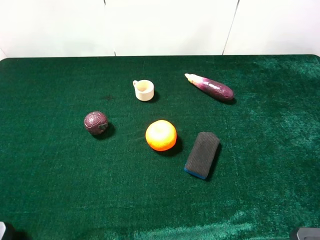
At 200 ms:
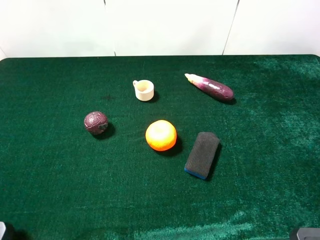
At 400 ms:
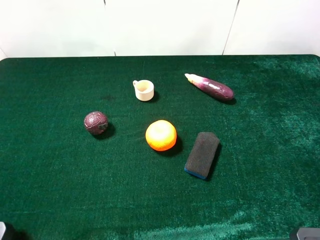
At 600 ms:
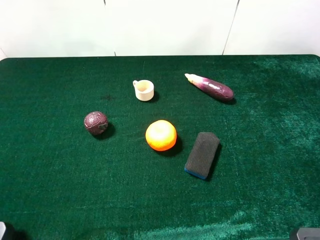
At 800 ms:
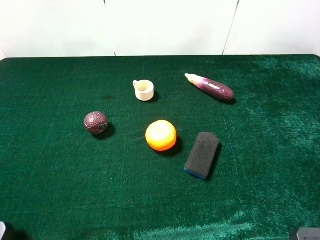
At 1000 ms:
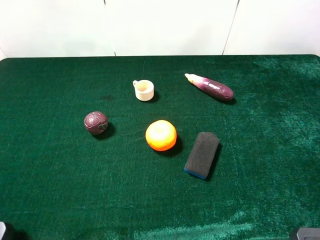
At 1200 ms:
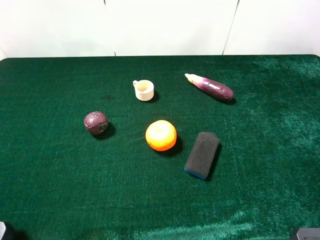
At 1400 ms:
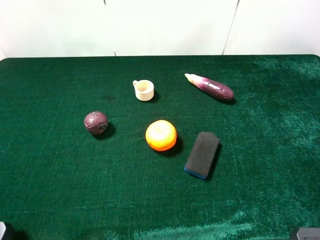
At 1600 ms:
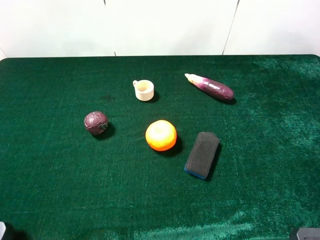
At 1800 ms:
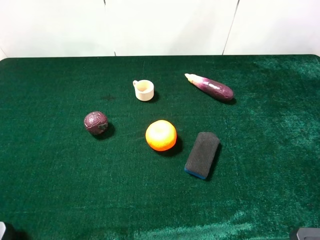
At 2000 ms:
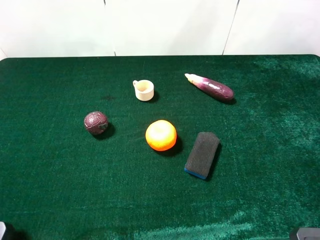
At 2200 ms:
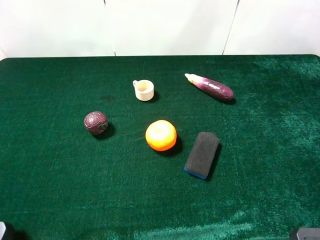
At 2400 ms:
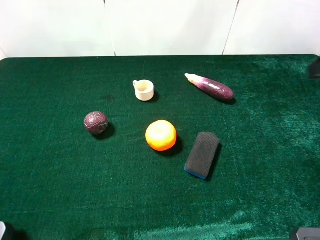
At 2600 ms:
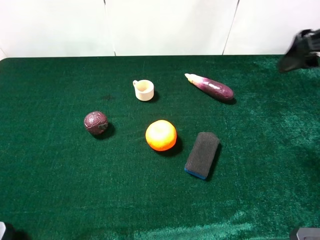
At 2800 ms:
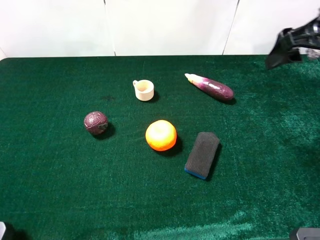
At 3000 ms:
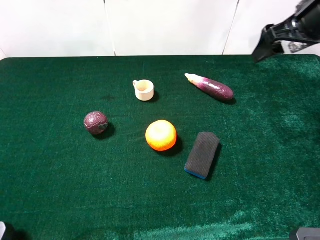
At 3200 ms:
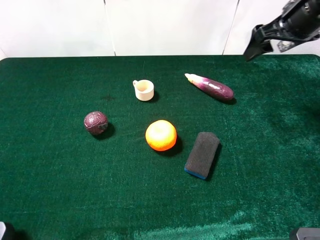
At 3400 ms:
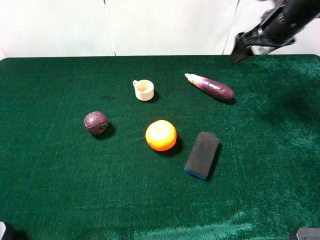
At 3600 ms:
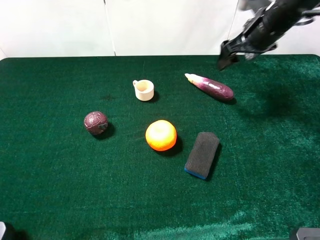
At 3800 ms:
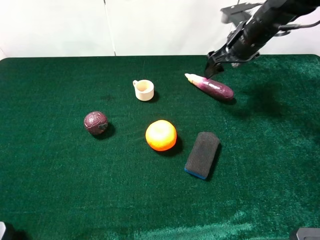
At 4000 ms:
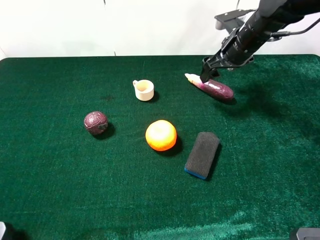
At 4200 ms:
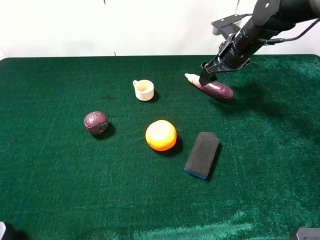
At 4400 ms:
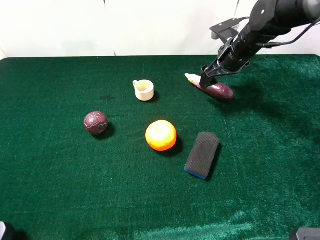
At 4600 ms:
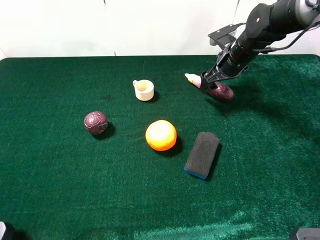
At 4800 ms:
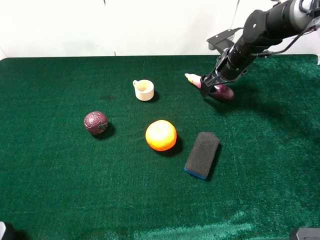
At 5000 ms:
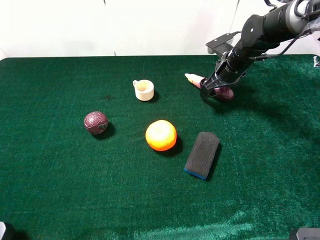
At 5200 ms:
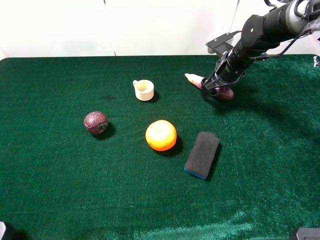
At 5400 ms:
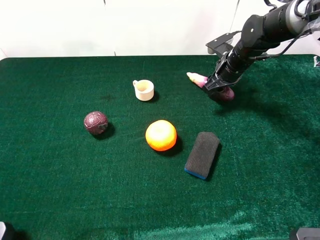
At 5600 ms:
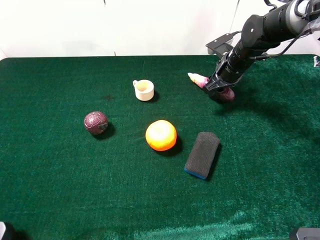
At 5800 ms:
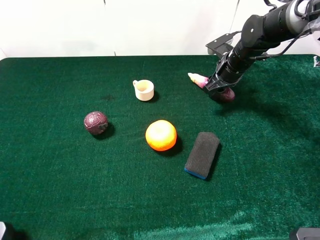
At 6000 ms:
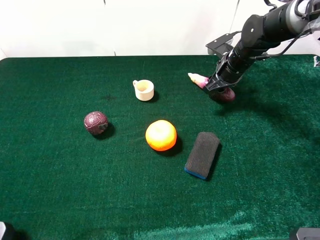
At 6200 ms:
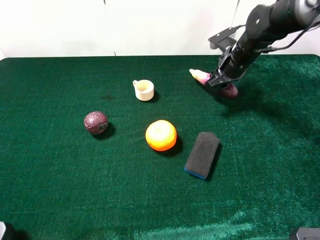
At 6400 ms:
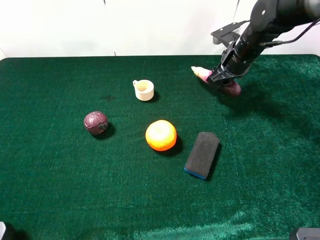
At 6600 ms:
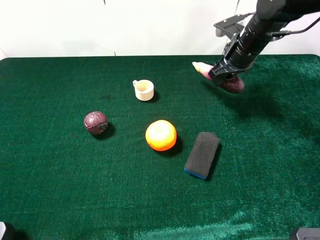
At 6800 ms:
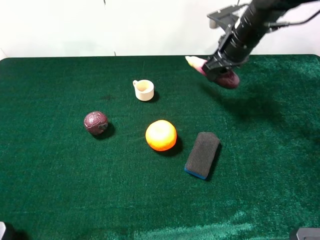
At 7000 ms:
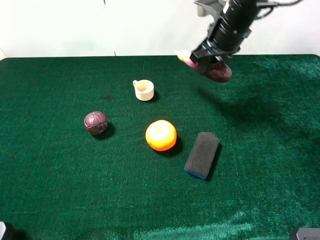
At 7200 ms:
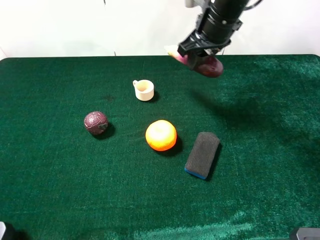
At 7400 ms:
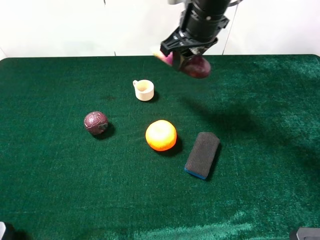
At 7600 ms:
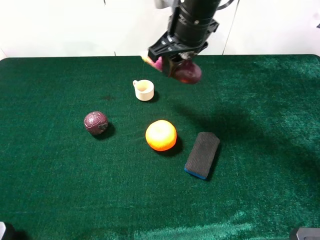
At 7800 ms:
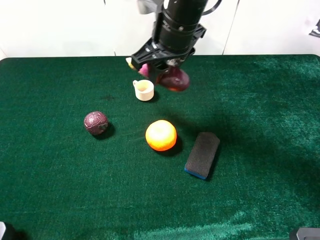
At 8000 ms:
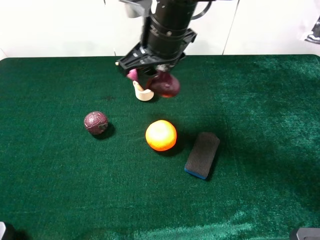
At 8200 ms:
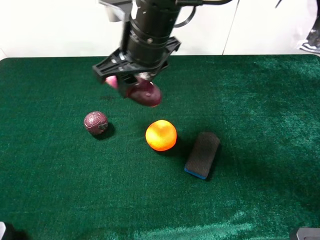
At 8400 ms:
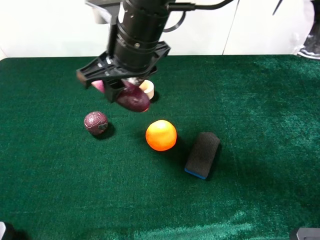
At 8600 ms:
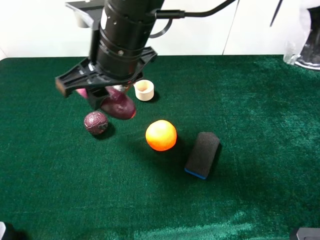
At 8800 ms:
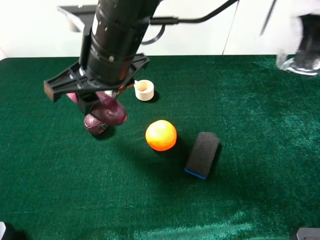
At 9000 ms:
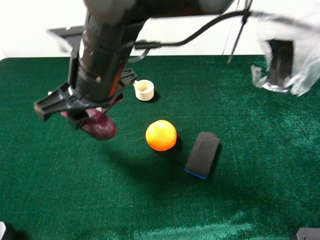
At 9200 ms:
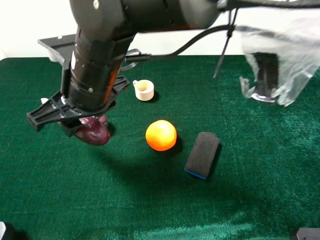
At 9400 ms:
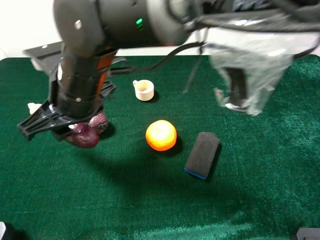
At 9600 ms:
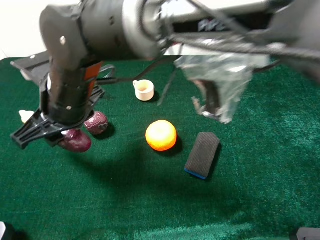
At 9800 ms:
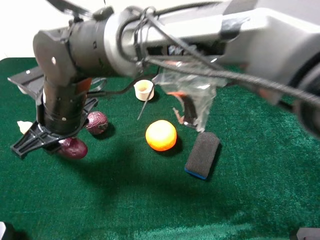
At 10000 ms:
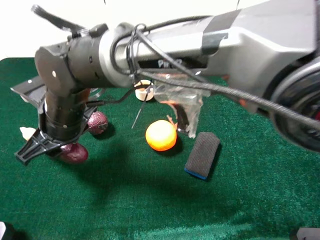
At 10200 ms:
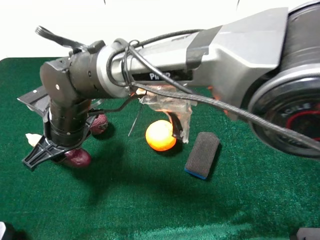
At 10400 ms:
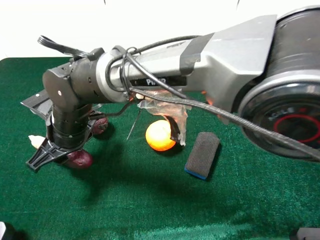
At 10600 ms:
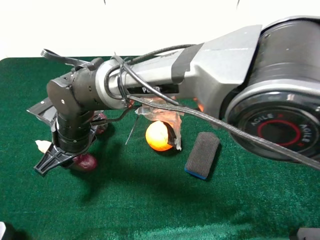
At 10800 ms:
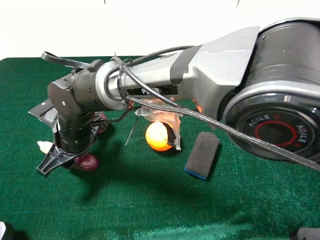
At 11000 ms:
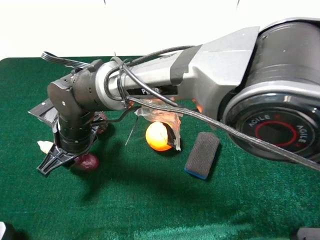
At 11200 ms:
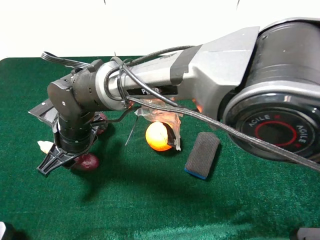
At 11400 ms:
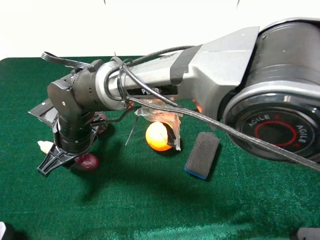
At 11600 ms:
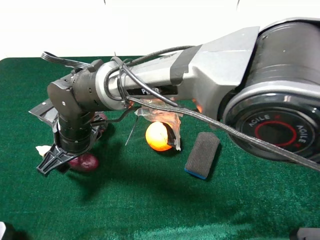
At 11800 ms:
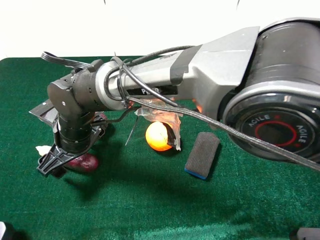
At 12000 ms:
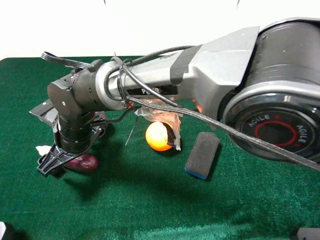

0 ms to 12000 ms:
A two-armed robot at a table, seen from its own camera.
Task of the whole recording: the gripper move the object.
1600 ms to 3000 ms: The right gripper travels forward by some 25 cm.
3000 ms to 4400 ms: The right gripper shifts about 15 cm downward, forward and to the left.
4400 ms to 6000 ms: The right gripper closes.
6000 ms to 7600 ms: The right gripper is displaced upward, to the left and backward by about 20 cm.
7600 ms to 9000 ms: The right gripper moves to the left and backward, about 15 cm.
9000 ms to 10400 ms: The right gripper moves downward and to the left, about 15 cm.
10400 ms to 12000 ms: The right gripper opens up.

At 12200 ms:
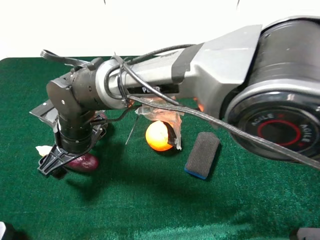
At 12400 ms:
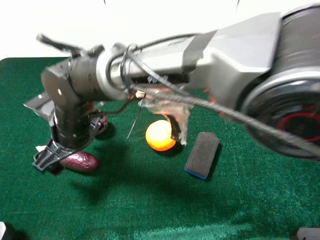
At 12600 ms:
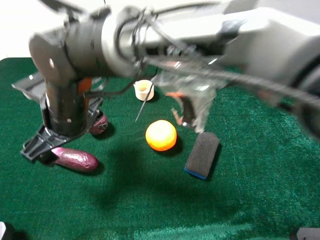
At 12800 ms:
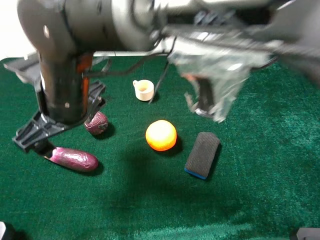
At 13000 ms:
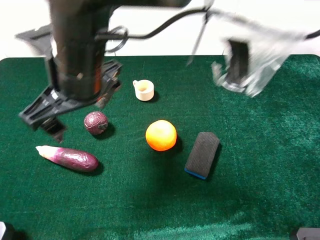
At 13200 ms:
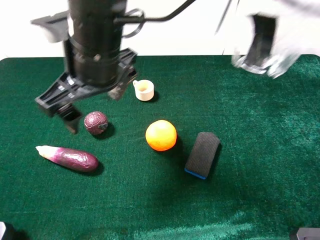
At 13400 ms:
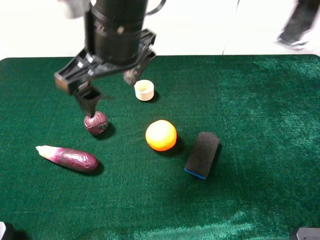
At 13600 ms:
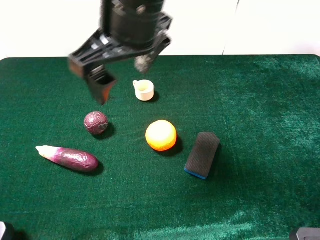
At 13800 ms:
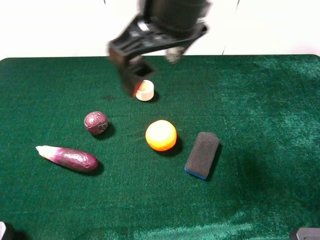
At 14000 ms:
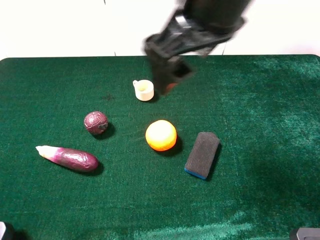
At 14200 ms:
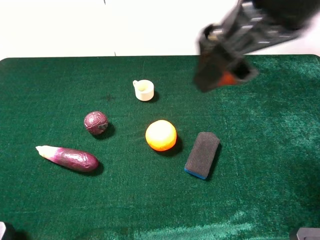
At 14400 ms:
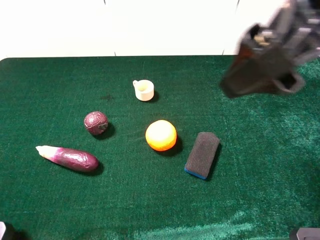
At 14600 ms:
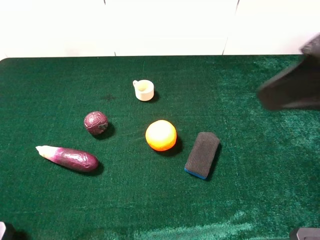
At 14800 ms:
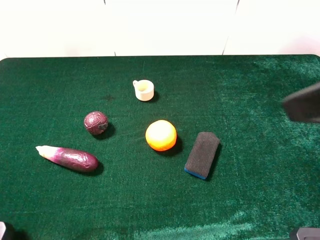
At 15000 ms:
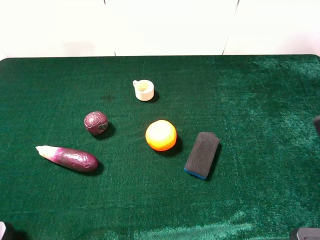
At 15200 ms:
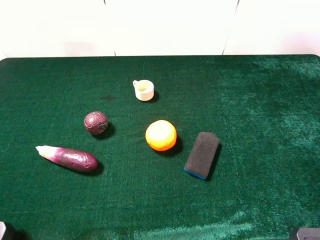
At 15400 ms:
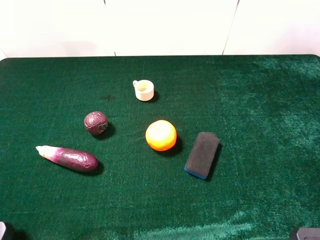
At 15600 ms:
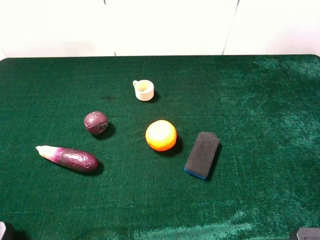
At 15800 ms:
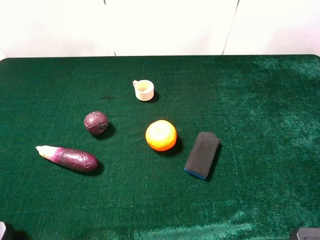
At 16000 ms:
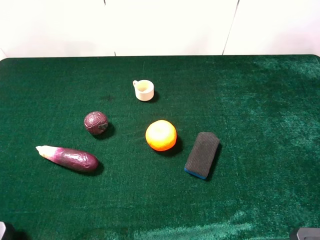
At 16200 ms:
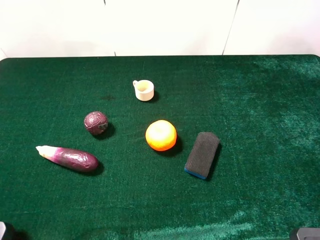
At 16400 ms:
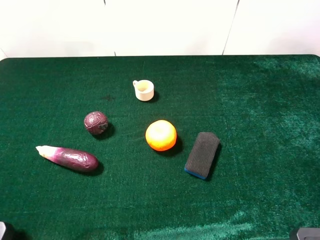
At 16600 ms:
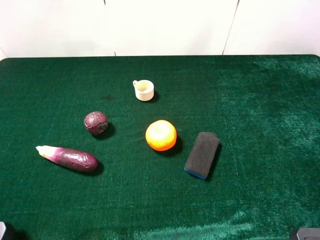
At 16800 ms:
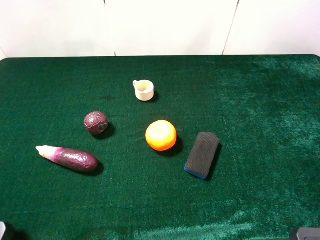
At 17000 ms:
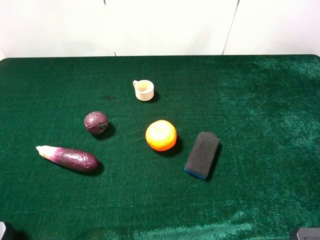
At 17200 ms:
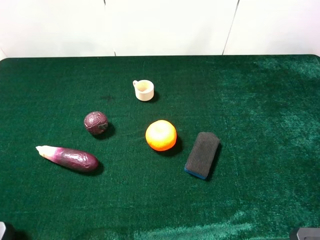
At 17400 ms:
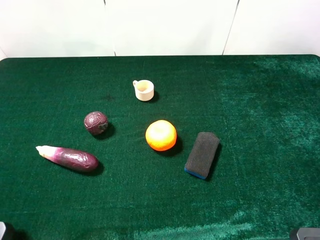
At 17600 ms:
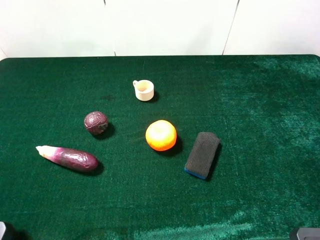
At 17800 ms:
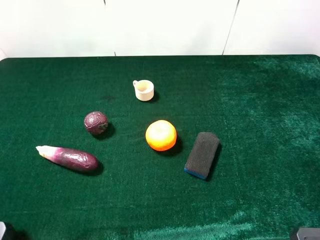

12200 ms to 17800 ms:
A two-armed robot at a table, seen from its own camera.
Task of the whole recording: the gripper move the object.
12200 ms to 13600 ms: The right gripper shifts some 25 cm upward and to the right.
13600 ms to 15000 ms: The right gripper heads to the right and backward, covering about 30 cm.
16400 ms to 17800 ms: Both grippers stay about where they are.

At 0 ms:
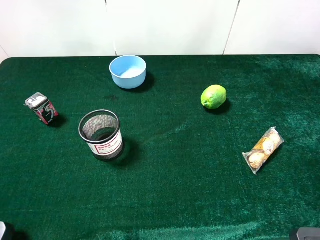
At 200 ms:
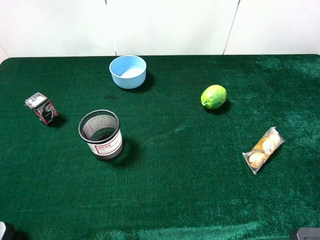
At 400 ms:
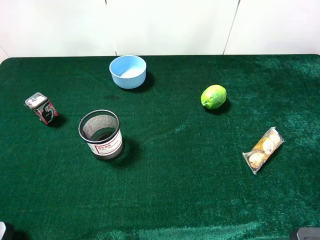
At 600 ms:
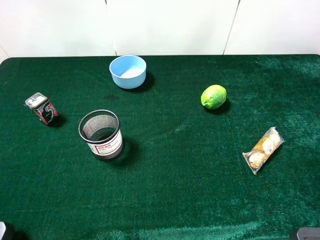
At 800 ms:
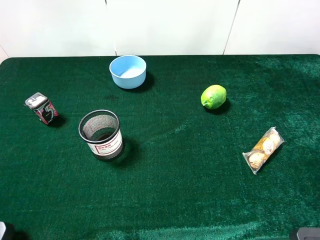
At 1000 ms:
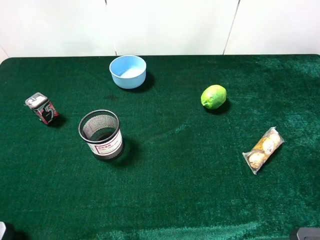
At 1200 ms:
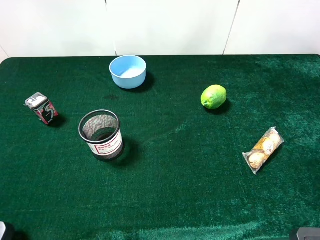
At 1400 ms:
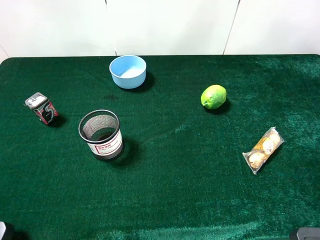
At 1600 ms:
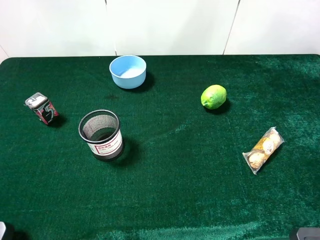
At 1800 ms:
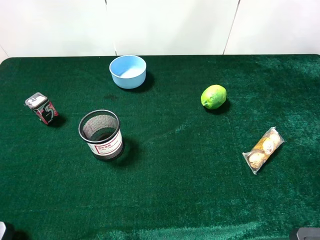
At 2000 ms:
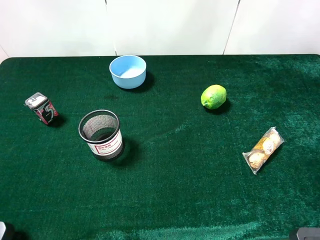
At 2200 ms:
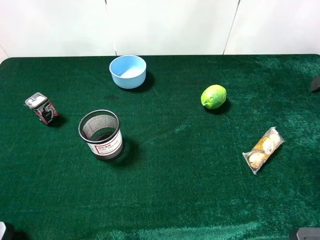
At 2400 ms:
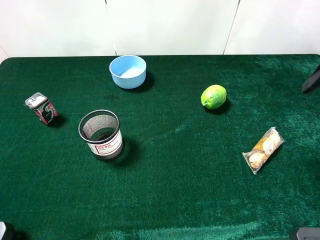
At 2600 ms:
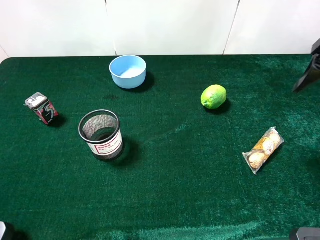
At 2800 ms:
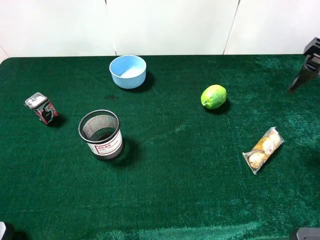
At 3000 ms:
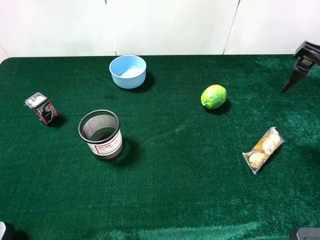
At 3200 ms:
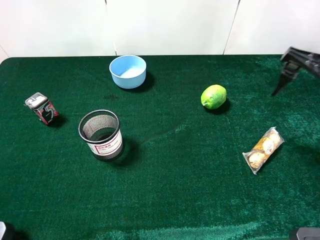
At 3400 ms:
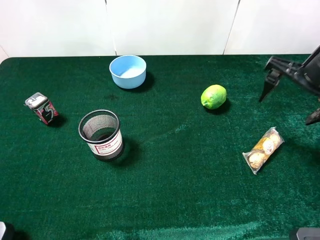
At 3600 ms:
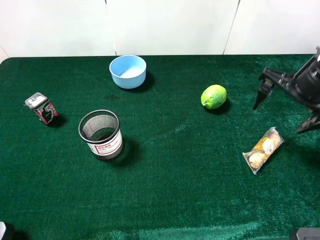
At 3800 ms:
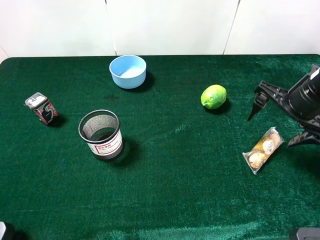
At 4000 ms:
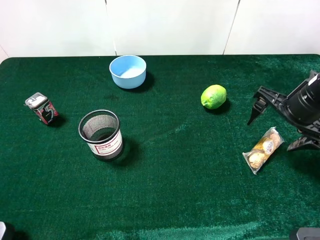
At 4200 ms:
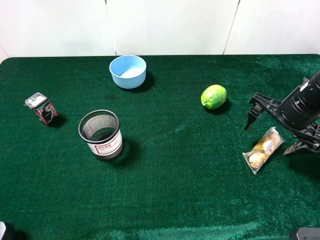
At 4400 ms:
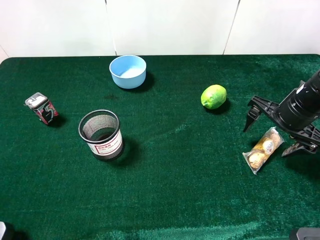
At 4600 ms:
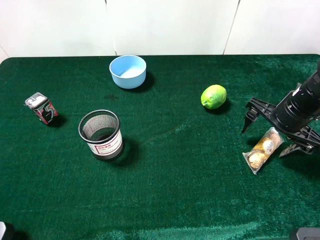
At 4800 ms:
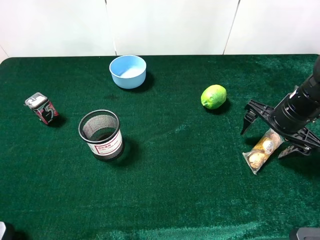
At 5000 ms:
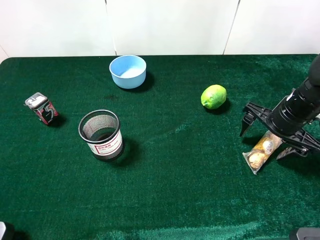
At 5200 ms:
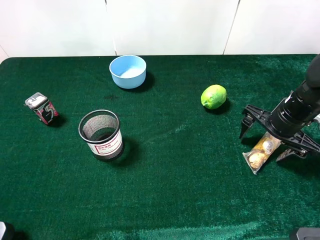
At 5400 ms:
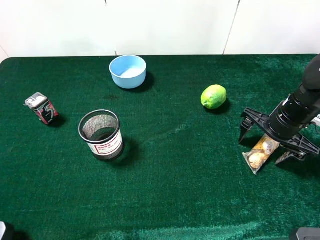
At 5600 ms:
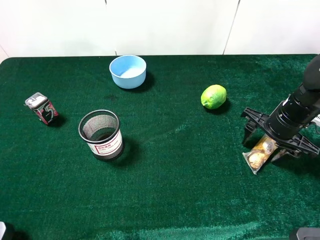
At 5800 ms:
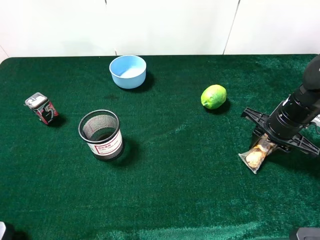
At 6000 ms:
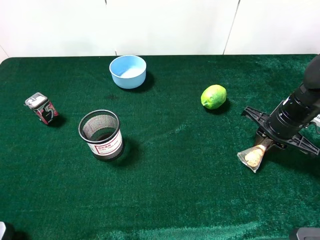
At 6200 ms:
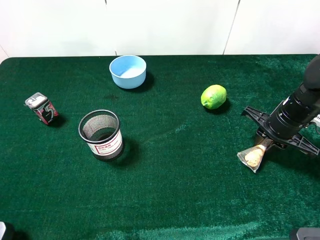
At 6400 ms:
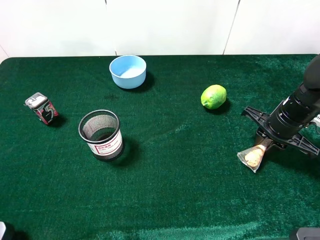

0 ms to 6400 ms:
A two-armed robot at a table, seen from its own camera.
Task of the whole recording: the gripper move the object.
Step, 0 ms to 6000 ms: Grasp the chocolate with the right gripper.
1600 ms to 3200 ms: The right gripper is displaced forward and downward by about 15 cm.
3200 ms to 4800 ms: The right gripper is displaced downward by some 10 cm.
4800 ms to 6400 ms: The right gripper closes.
